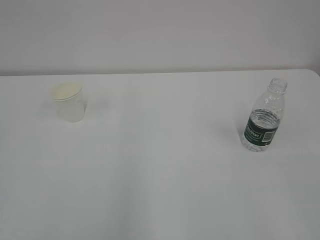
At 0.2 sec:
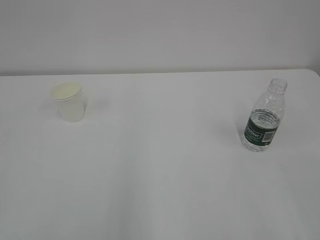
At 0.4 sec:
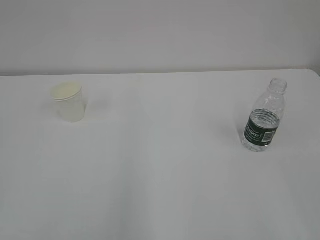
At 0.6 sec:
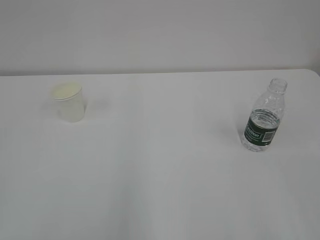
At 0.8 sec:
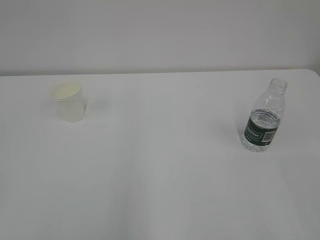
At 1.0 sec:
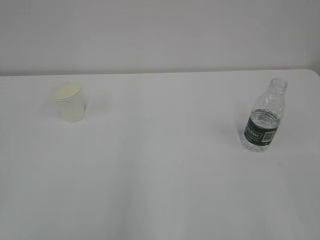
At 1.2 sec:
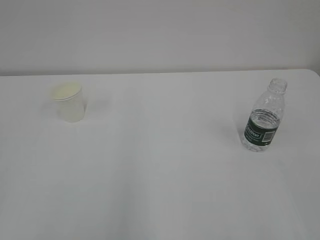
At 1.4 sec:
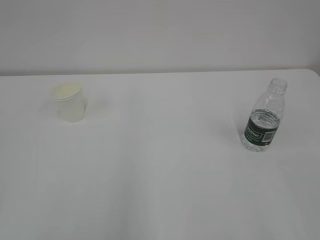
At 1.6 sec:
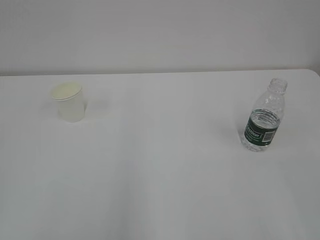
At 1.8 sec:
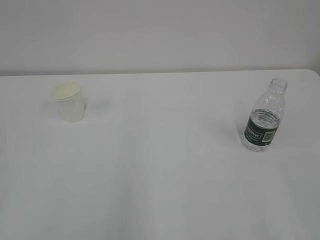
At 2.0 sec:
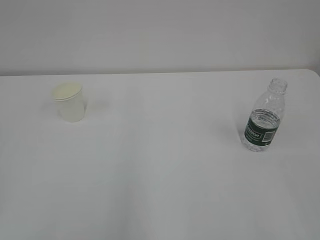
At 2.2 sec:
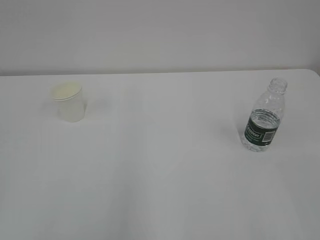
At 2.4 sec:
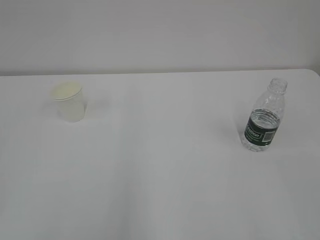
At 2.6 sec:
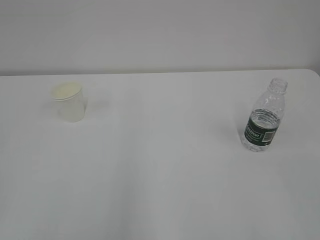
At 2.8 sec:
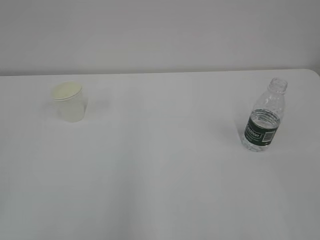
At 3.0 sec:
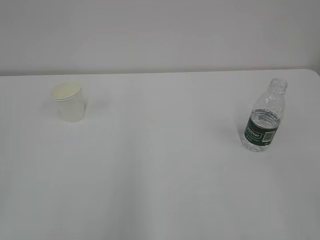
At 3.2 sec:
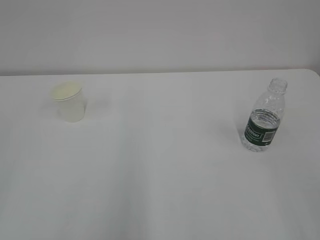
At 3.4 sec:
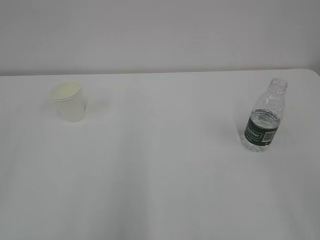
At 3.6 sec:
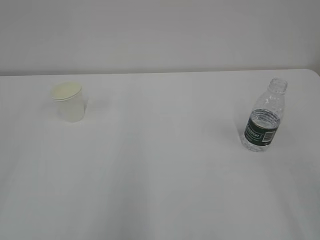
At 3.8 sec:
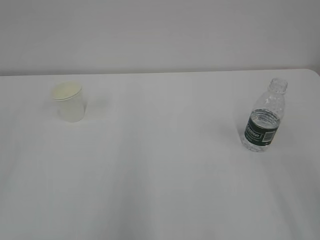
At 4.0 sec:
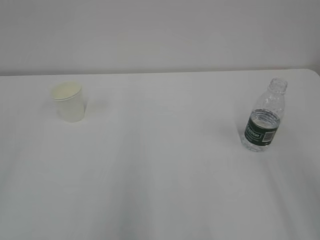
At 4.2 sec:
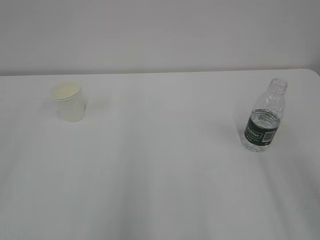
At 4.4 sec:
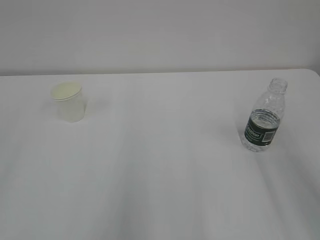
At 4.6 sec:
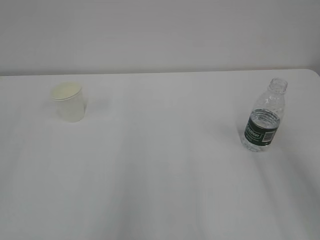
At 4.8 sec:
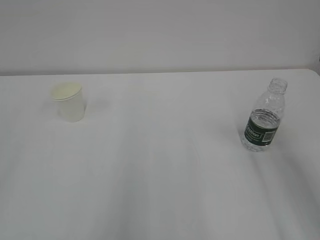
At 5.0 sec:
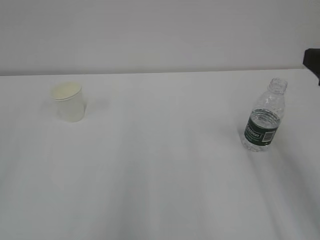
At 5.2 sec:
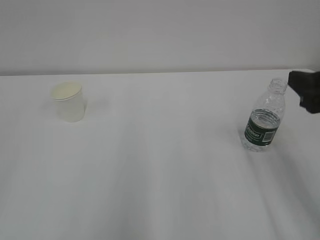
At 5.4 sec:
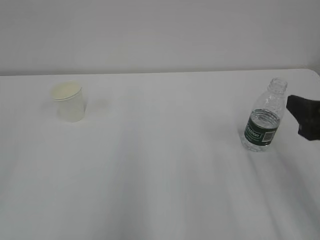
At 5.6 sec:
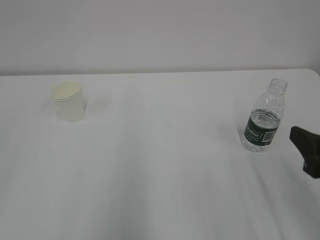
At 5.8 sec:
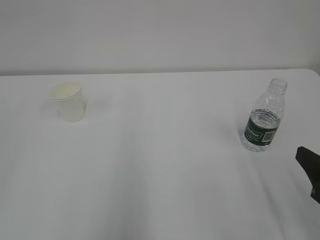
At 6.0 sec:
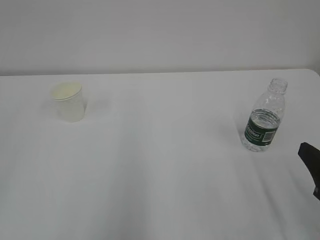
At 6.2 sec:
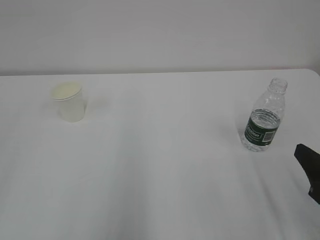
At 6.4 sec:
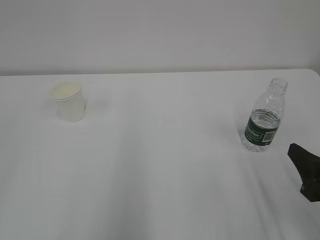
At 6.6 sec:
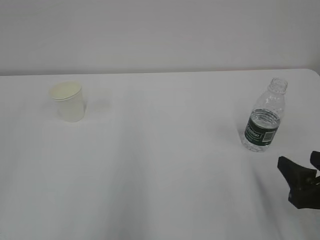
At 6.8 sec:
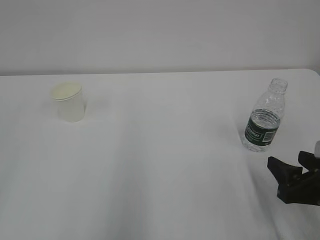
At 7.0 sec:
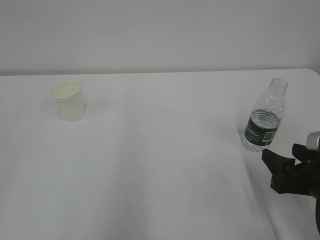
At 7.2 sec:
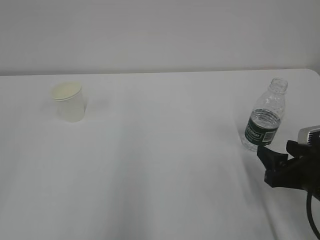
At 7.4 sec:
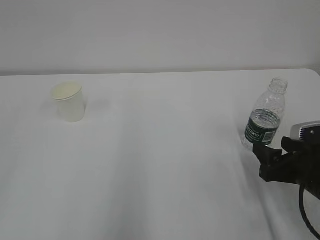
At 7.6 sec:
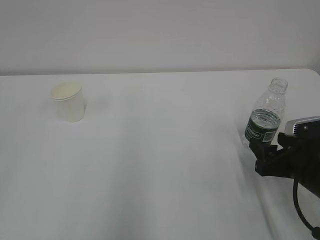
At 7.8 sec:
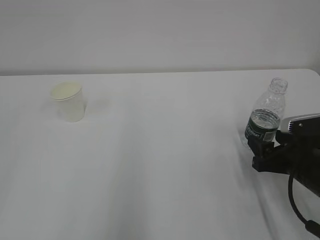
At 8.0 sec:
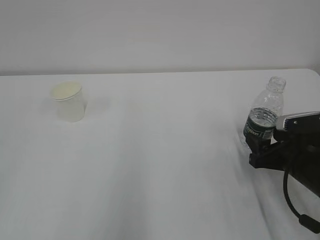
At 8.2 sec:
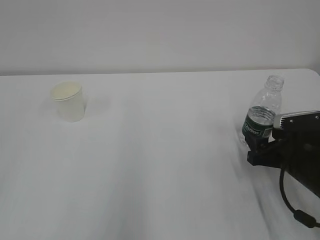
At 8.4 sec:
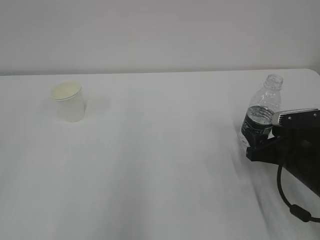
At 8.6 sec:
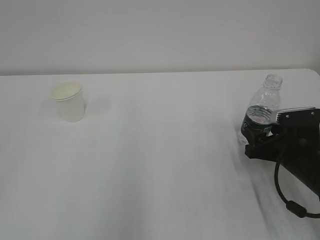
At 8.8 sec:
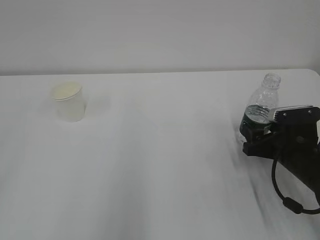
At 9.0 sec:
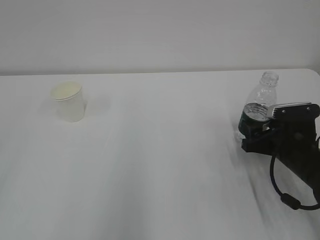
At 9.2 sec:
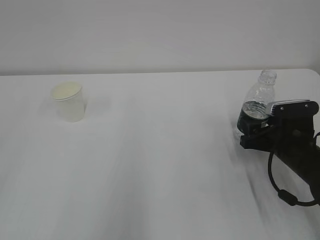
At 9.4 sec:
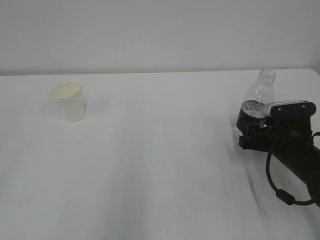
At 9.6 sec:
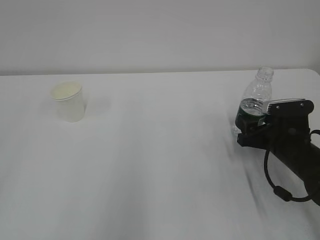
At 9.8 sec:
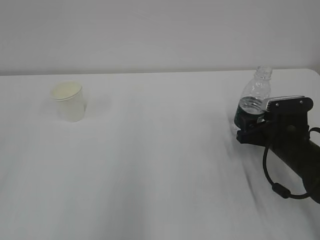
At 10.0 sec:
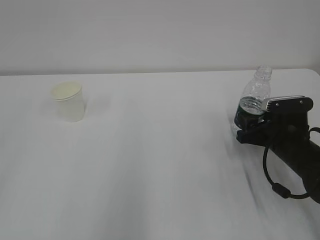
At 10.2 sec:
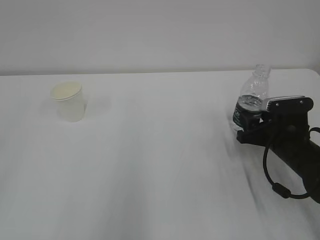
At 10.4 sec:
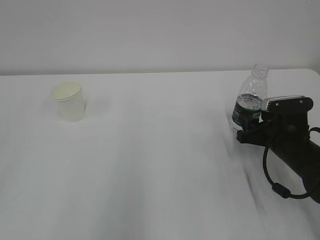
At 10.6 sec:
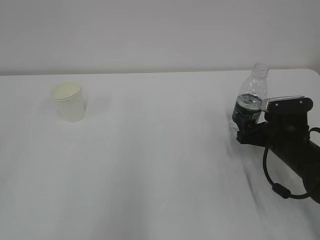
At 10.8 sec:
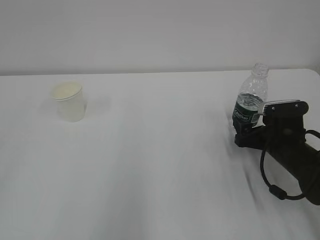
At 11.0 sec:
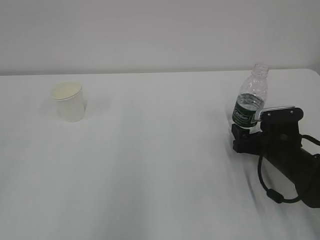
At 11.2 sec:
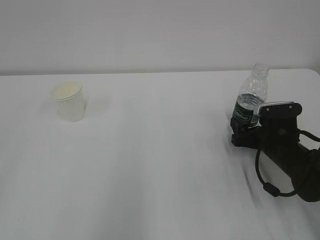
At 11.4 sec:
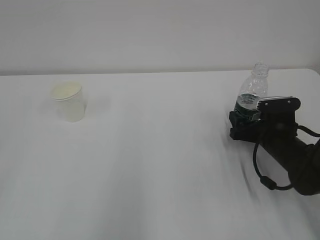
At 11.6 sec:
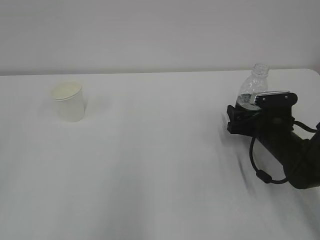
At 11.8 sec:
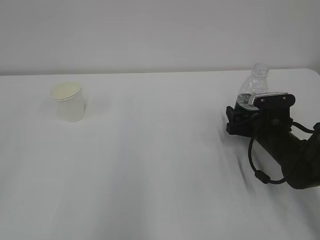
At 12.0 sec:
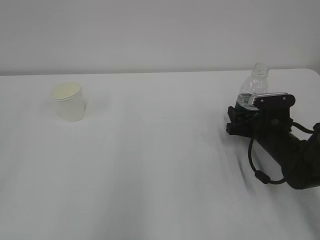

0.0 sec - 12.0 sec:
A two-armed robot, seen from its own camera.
4.4 sec - 6.0 sec: The right gripper goes roughly 15 cm downward.
6.0 sec - 7.6 sec: The right gripper goes approximately 10 cm forward and downward.
7.6 sec - 9.0 sec: The right gripper shifts approximately 5 cm forward.
9.0 sec - 10.4 sec: The right gripper closes up.
10.4 sec - 12.0 sec: The right gripper opens.

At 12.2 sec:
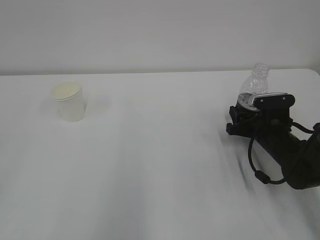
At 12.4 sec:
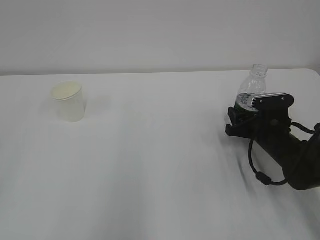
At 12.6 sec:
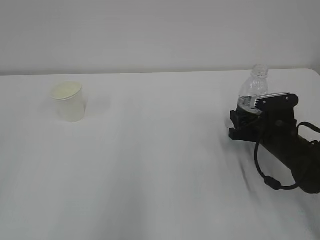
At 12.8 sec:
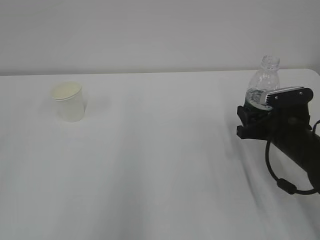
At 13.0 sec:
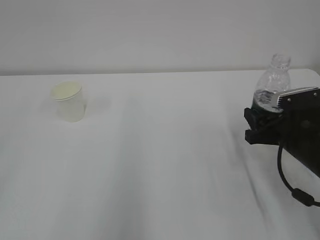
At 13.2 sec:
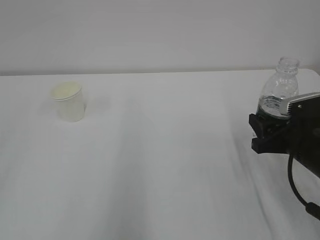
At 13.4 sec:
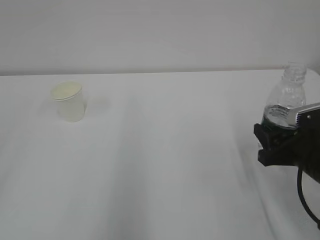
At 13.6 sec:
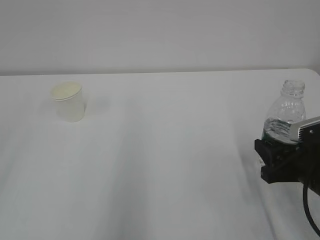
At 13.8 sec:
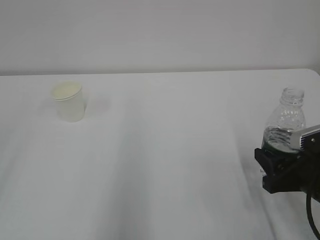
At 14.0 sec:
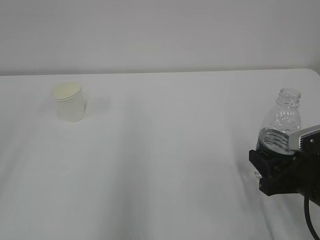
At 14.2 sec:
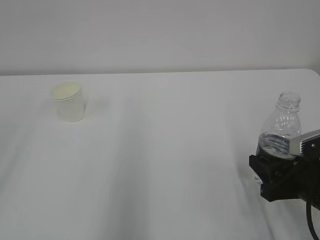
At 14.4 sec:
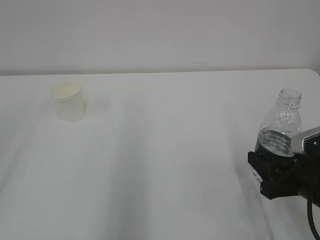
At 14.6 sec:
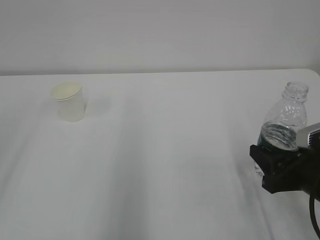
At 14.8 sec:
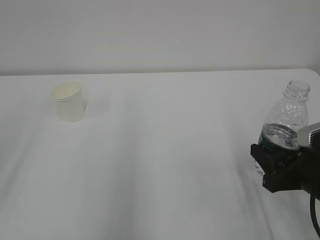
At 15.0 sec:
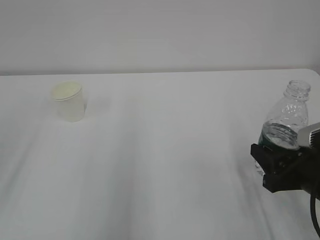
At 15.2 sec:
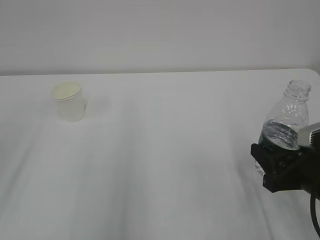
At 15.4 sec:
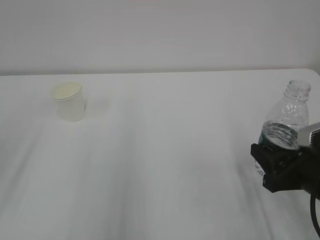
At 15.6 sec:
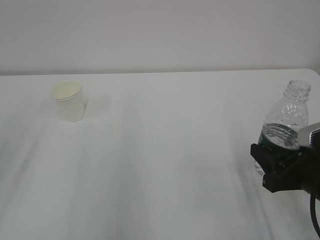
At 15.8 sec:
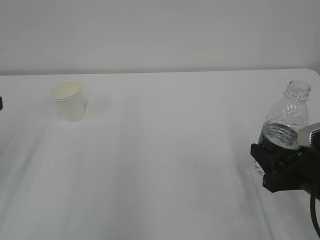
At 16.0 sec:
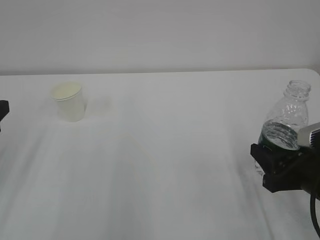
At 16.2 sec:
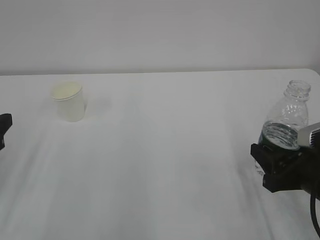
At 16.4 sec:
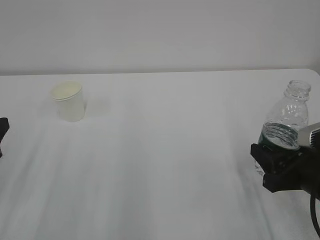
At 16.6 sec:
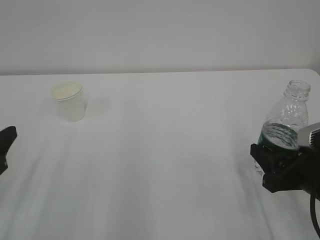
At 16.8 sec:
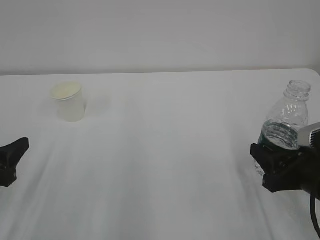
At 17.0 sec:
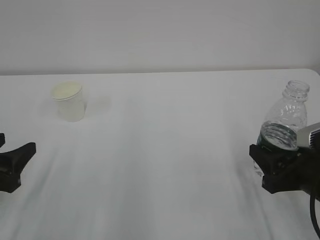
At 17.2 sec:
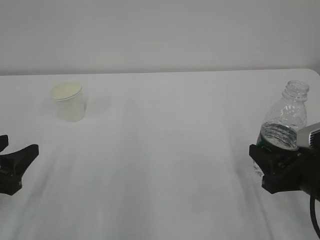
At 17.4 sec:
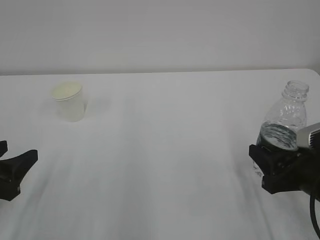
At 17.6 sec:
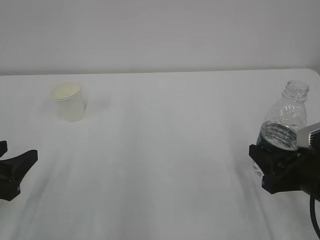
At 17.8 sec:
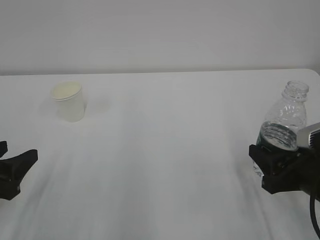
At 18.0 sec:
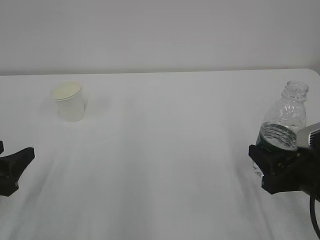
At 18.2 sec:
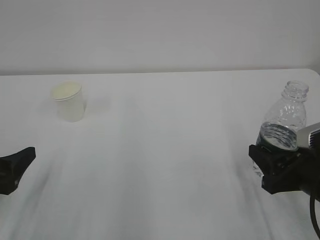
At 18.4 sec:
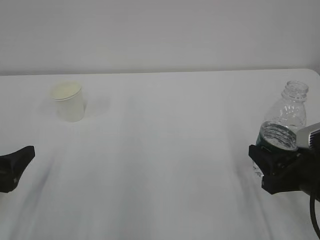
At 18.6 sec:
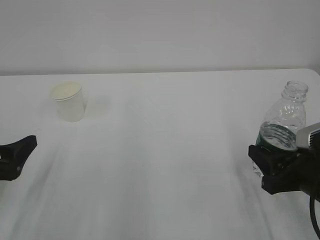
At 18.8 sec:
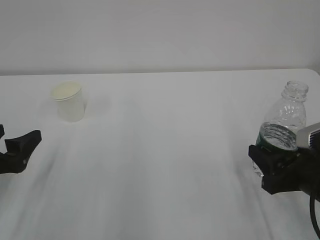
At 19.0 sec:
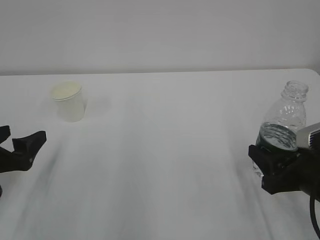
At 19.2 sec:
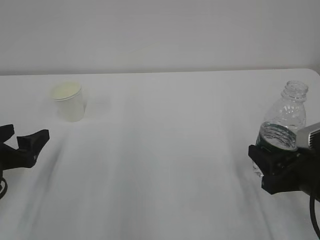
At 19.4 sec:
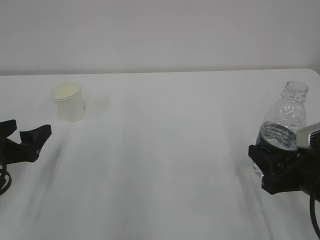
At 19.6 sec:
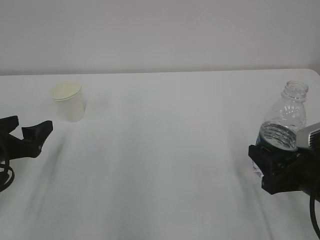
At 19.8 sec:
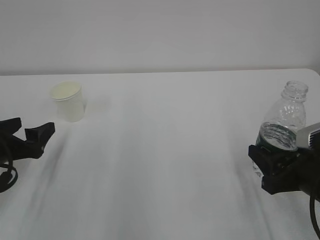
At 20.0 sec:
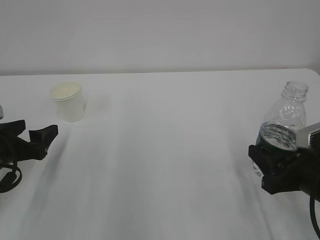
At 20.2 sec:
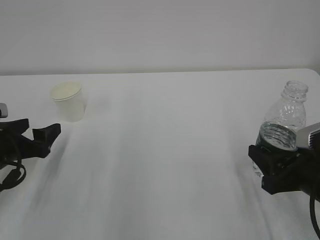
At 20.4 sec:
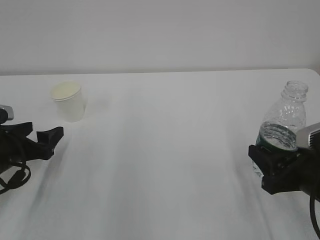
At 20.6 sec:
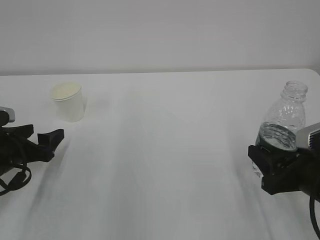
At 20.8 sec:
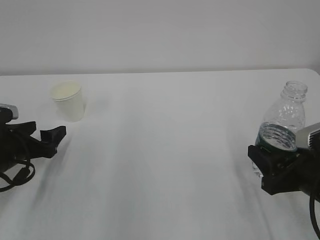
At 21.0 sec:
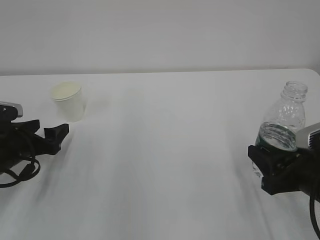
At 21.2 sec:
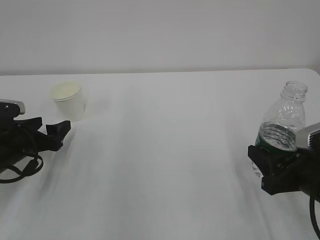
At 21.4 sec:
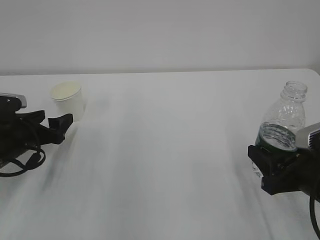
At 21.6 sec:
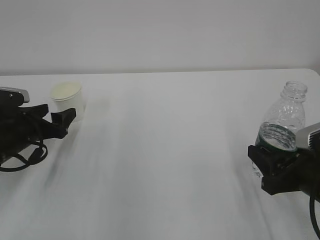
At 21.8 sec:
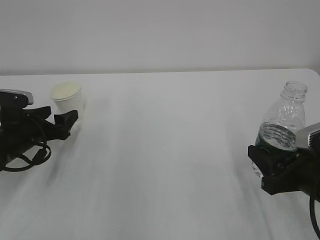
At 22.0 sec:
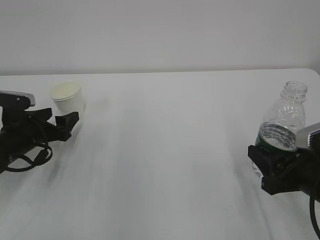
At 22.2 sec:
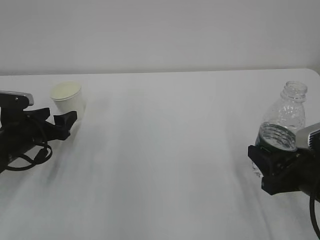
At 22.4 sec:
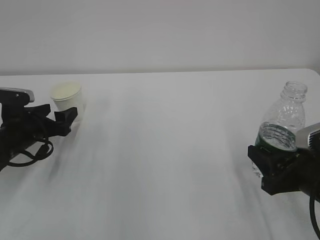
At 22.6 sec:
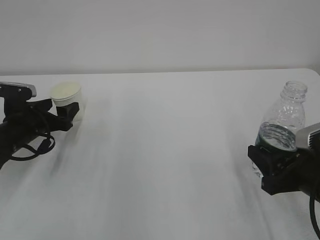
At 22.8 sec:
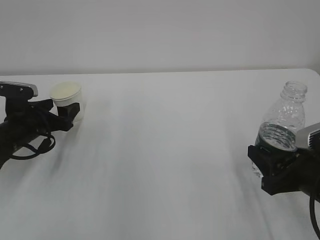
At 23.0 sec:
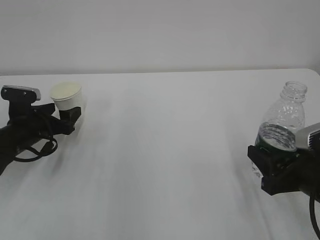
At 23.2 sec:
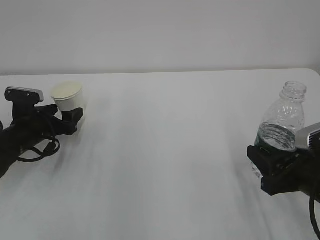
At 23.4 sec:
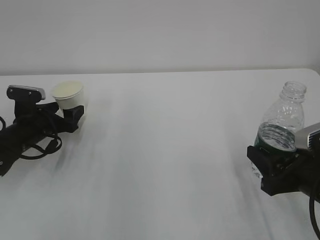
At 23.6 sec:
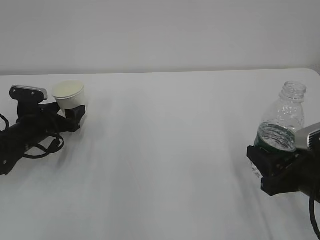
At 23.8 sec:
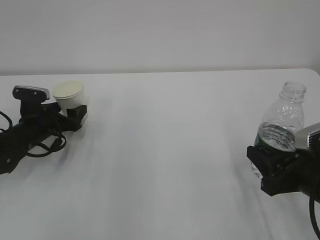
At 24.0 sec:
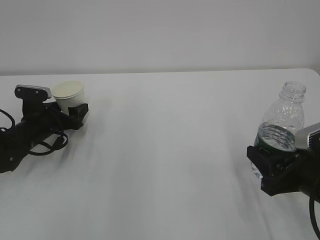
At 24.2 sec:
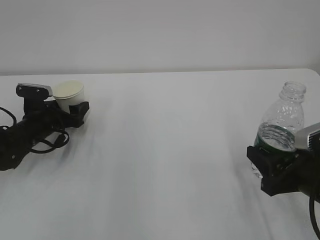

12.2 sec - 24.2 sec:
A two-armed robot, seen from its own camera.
12.2 sec - 13.8 sec: The right gripper goes about 15 cm backward.
15.2 sec - 16.6 sec: The left gripper is displaced downward by approximately 10 cm.
16.6 sec - 18.2 sec: The left gripper opens up.
18.2 sec - 19.8 sec: The left gripper heads forward, covering about 5 cm.
19.8 sec - 21.2 sec: The left gripper moves forward, roughly 5 cm.
21.2 sec - 22.6 sec: There are only small adjustments of the grippers.
22.6 sec - 24.2 sec: The left gripper moves about 5 cm.
